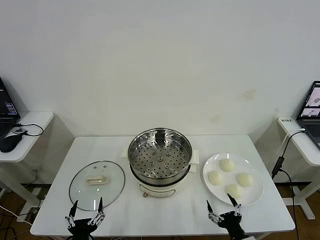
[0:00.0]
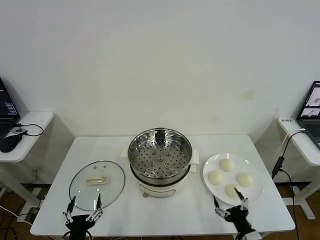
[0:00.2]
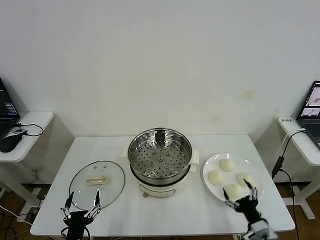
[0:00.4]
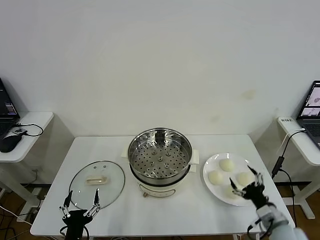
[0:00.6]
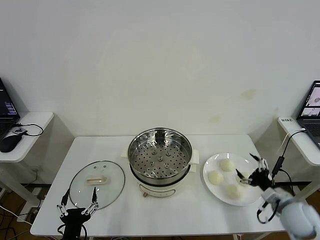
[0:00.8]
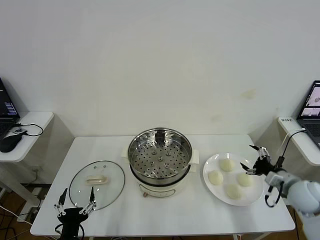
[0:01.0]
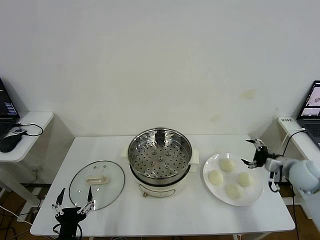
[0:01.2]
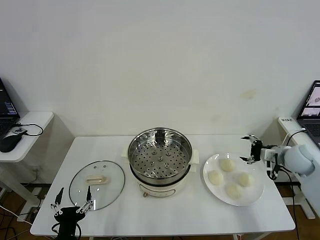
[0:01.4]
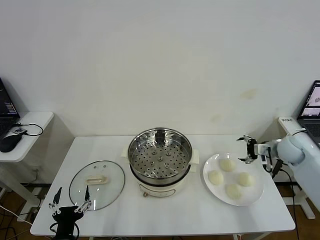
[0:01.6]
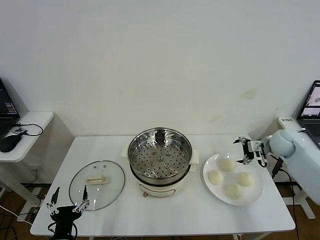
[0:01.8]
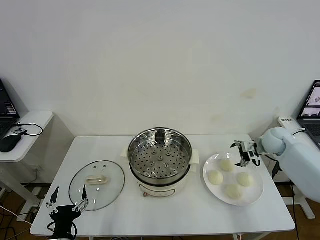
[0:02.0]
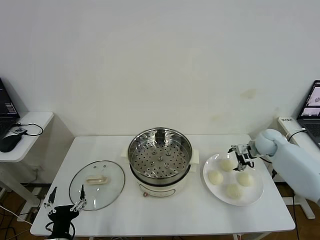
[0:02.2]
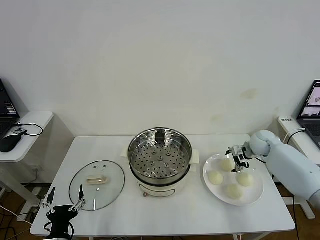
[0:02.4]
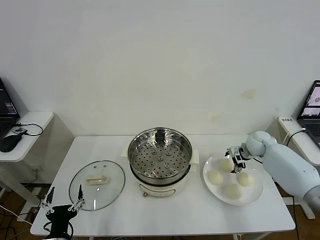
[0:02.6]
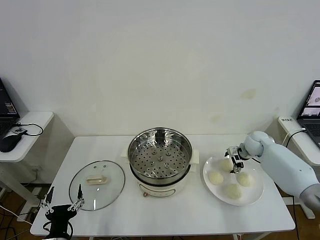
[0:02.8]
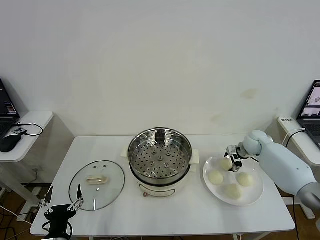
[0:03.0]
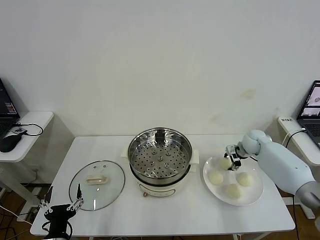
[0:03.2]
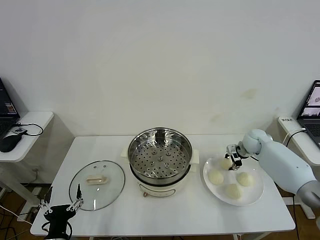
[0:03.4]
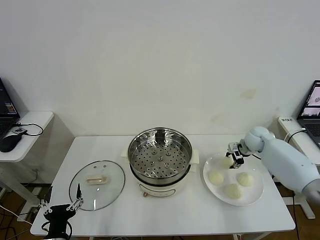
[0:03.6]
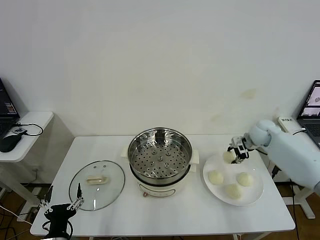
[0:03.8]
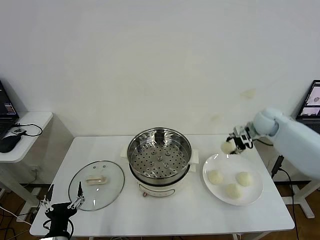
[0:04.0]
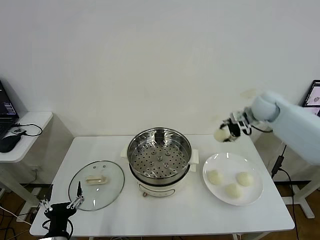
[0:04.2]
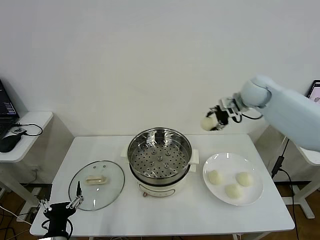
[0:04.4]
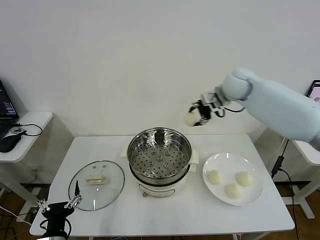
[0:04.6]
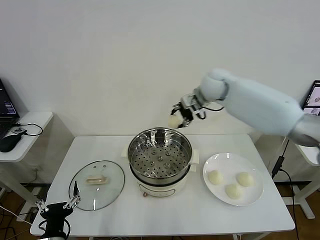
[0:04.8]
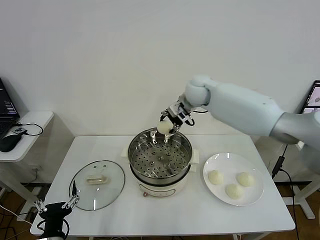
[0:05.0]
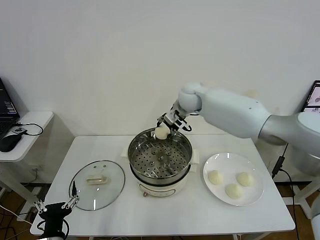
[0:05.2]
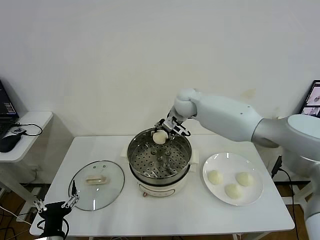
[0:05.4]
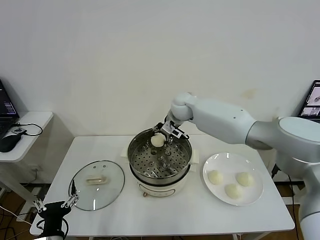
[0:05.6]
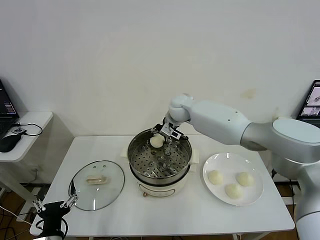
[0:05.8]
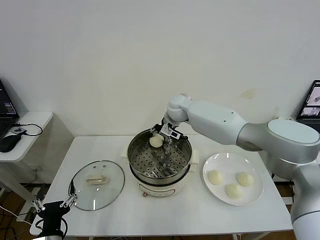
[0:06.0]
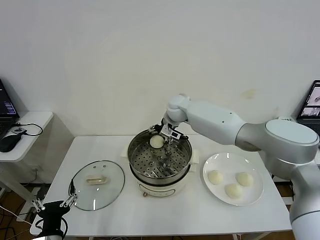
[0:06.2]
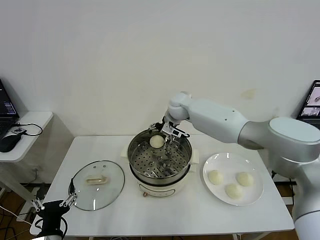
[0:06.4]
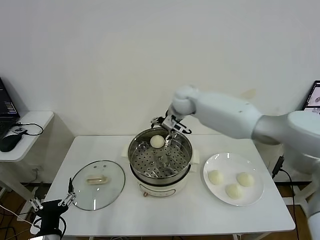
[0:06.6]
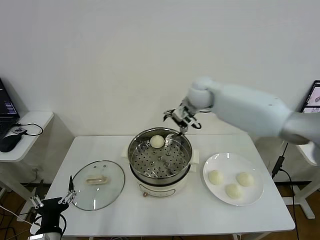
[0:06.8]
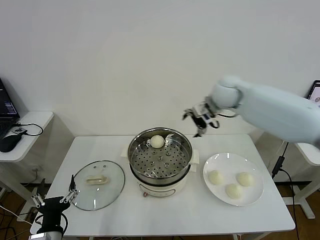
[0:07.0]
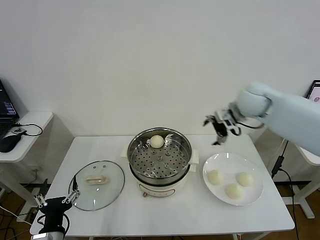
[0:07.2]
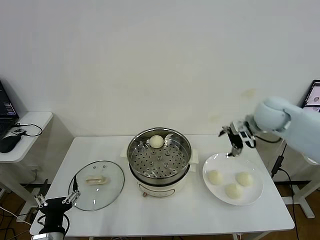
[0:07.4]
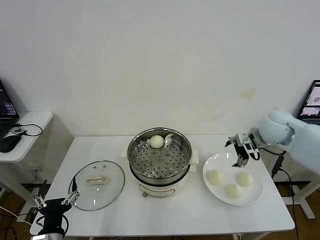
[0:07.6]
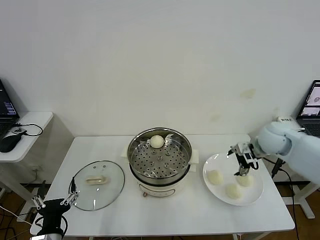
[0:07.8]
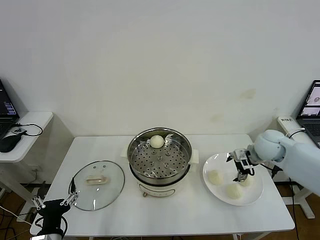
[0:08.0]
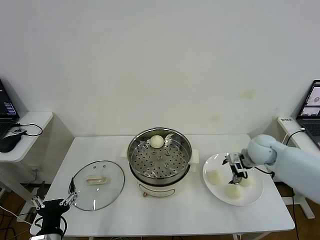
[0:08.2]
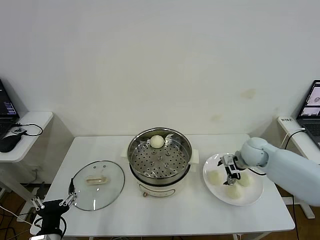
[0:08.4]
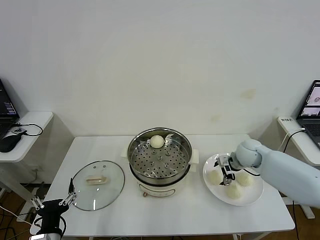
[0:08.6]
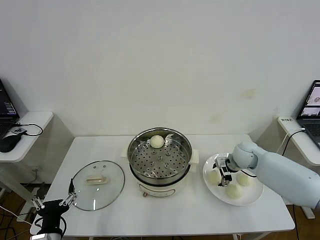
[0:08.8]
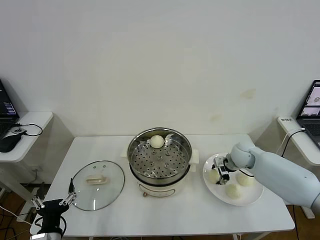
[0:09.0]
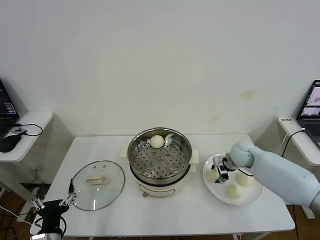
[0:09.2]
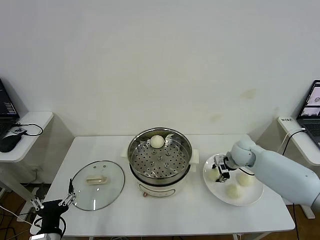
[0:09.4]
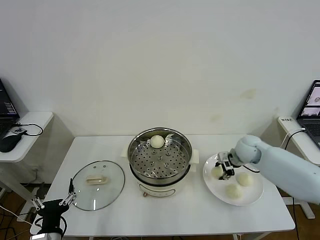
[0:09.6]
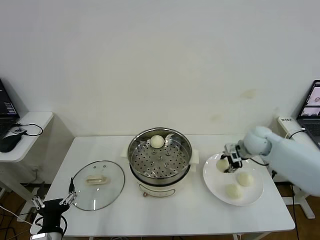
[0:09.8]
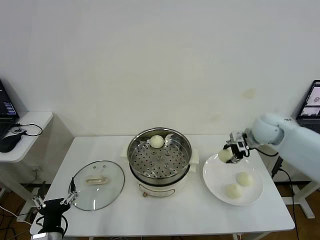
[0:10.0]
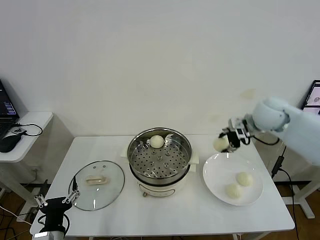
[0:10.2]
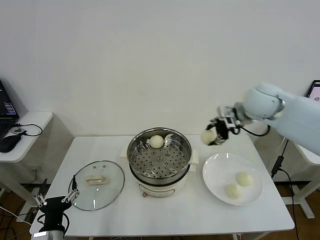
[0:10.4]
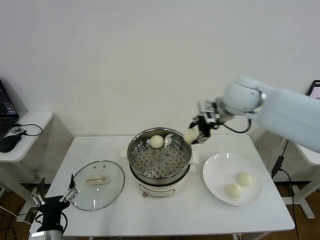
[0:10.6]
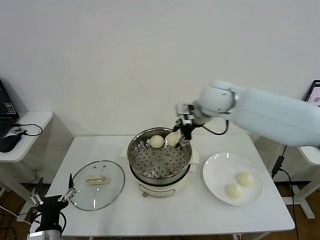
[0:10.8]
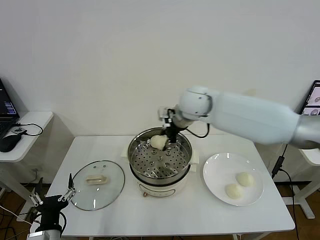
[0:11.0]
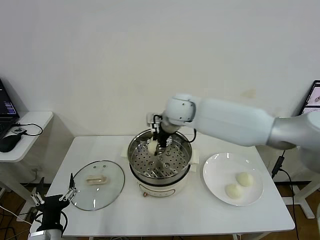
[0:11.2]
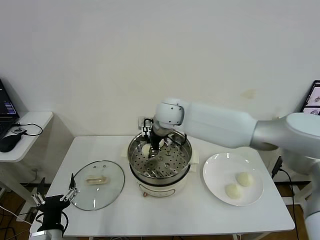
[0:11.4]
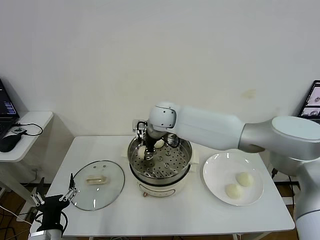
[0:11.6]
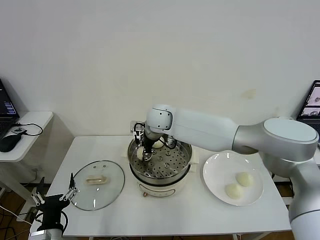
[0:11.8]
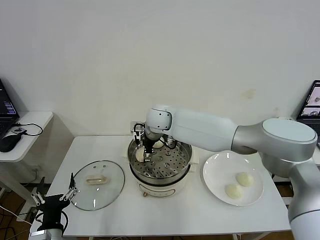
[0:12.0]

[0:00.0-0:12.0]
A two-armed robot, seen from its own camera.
Step, 0:00.0 to 0:03.2: Grasp the baozi in the plate with right gripper.
Step, 0:03.4 to 0:06.0: Place the baozi on the steamer with right gripper.
Step, 0:06.4 to 0:09.2: Grasp the baozi in the plate with right gripper.
Step, 0:09.4 to 0:12.0: Place the baozi on the steamer with right gripper.
0:01.6 to 0:03.0: The right gripper goes some 15 cm forward, downward and to the left, and closes.
0:03.0 to 0:04.4: The right gripper travels upward by some 25 cm, and closes.
0:04.4 to 0:06.0: The right gripper travels to the left and downward by roughly 25 cm.
0:06.0 to 0:07.6: The right gripper goes about 30 cm to the right and backward, and opens.
0:07.6 to 0:09.0: The right gripper is displaced downward by approximately 15 cm, and closes up.
0:09.0 to 0:10.4: The right gripper goes some 25 cm upward, and closes up.
0:10.4 to 0:12.0: The right gripper heads to the left, covering roughly 25 cm, and opens.

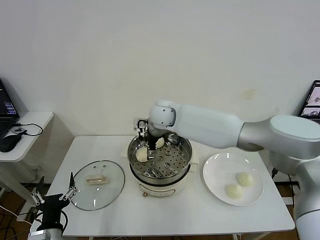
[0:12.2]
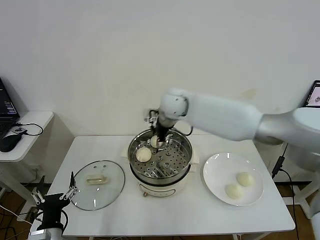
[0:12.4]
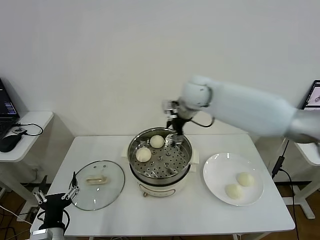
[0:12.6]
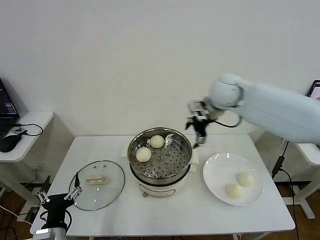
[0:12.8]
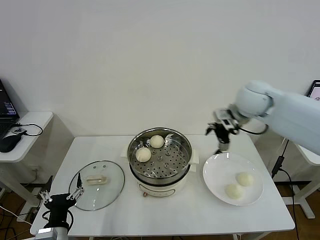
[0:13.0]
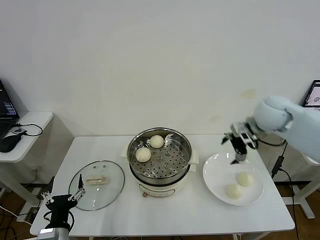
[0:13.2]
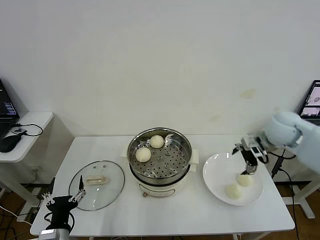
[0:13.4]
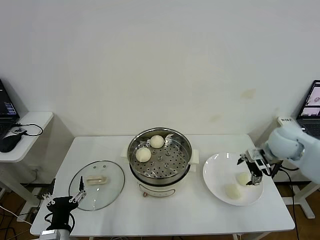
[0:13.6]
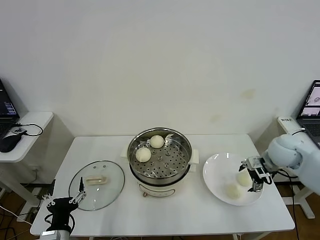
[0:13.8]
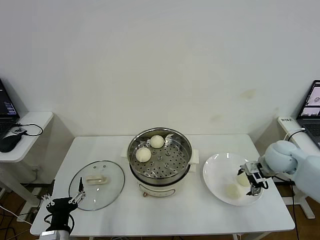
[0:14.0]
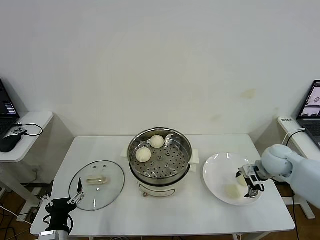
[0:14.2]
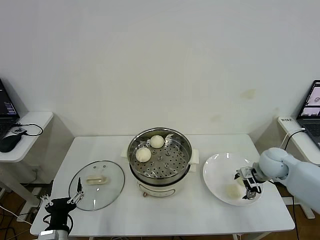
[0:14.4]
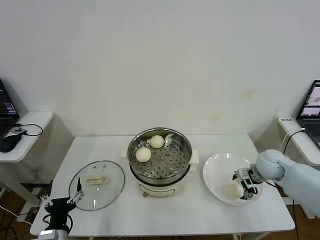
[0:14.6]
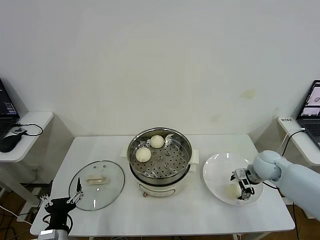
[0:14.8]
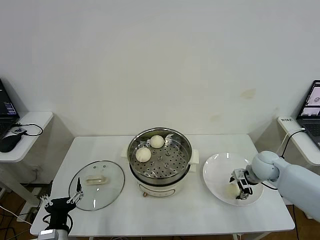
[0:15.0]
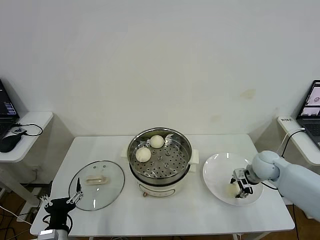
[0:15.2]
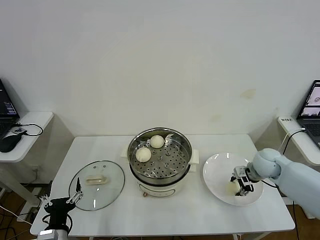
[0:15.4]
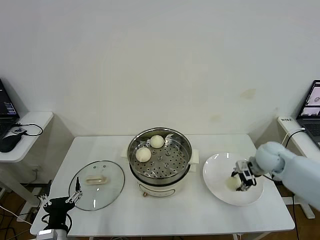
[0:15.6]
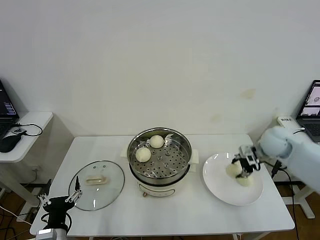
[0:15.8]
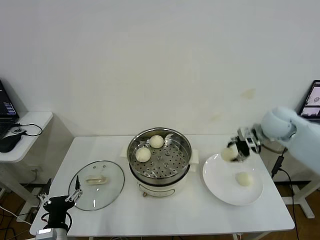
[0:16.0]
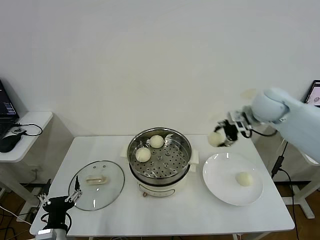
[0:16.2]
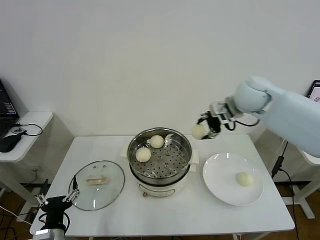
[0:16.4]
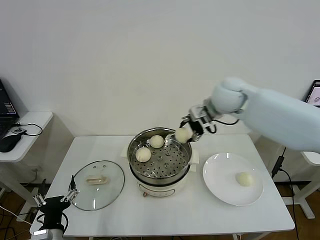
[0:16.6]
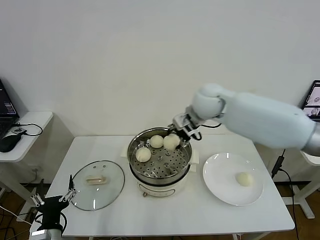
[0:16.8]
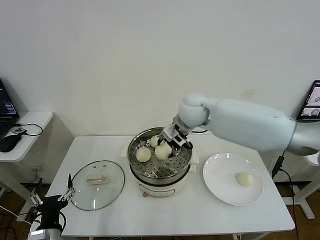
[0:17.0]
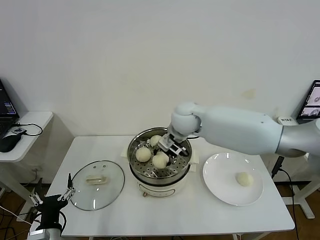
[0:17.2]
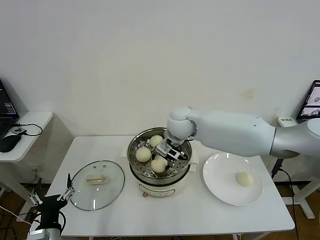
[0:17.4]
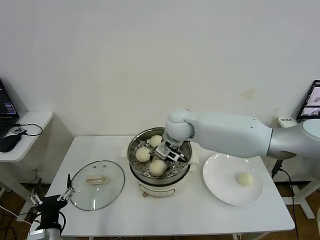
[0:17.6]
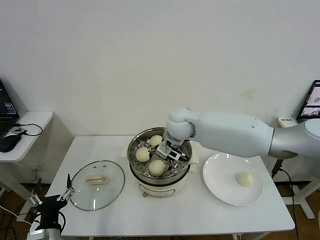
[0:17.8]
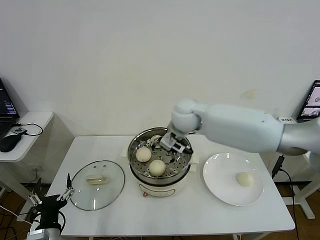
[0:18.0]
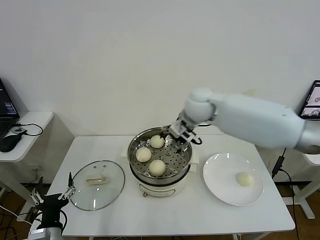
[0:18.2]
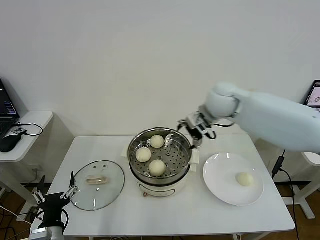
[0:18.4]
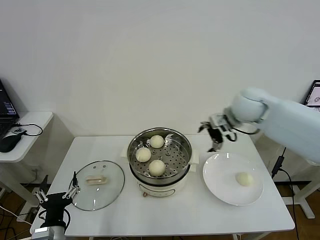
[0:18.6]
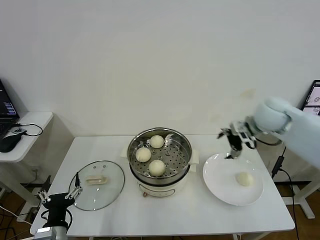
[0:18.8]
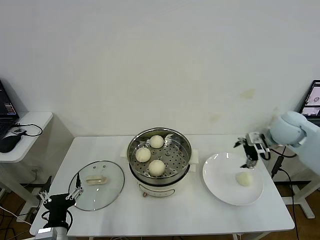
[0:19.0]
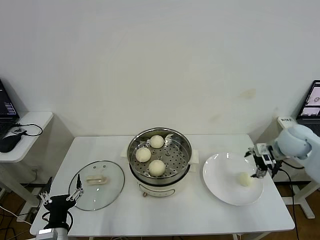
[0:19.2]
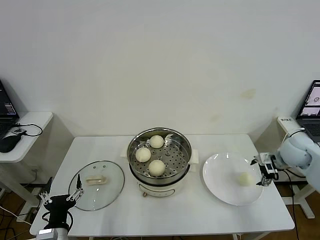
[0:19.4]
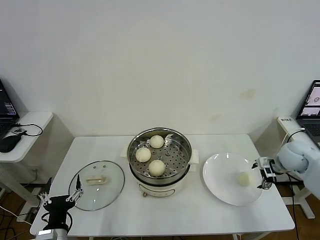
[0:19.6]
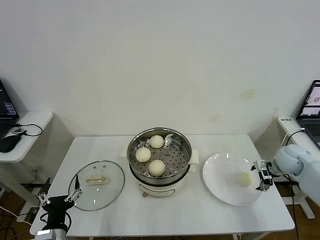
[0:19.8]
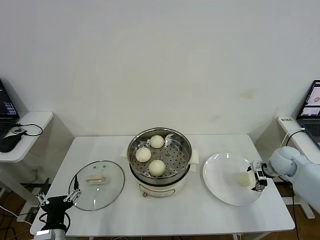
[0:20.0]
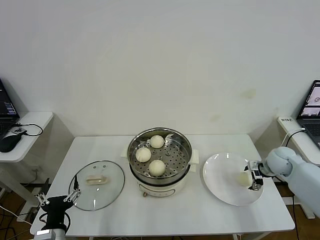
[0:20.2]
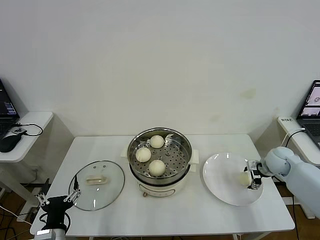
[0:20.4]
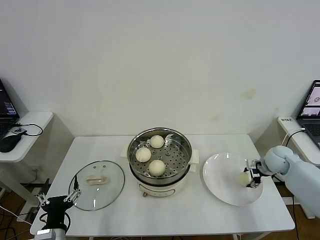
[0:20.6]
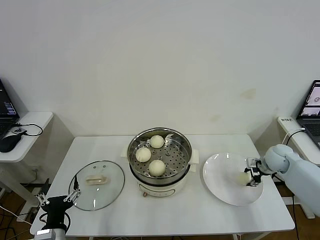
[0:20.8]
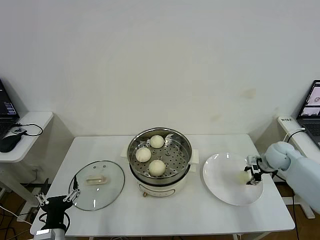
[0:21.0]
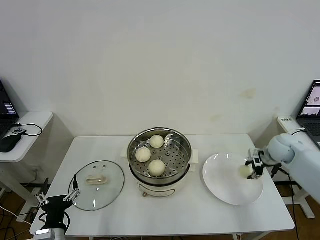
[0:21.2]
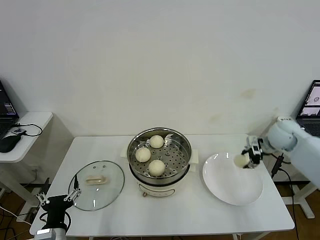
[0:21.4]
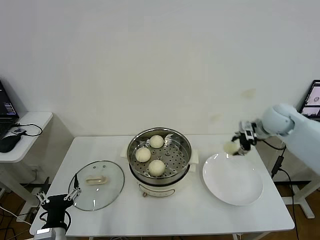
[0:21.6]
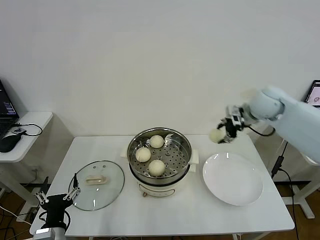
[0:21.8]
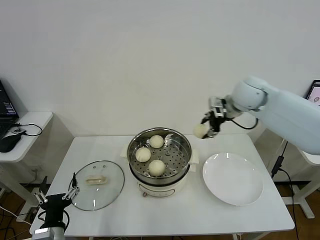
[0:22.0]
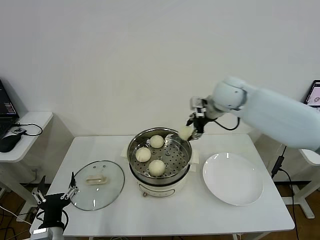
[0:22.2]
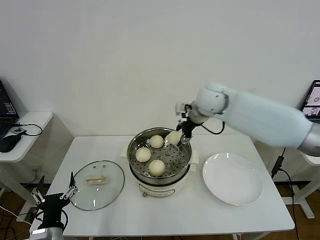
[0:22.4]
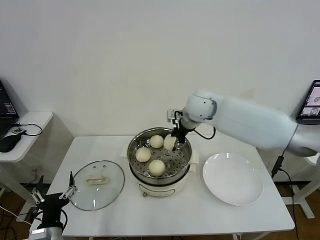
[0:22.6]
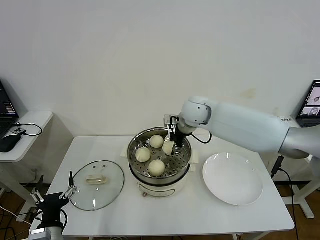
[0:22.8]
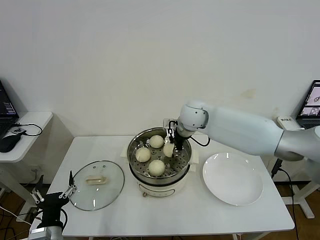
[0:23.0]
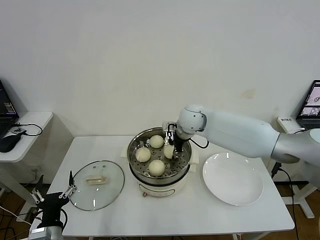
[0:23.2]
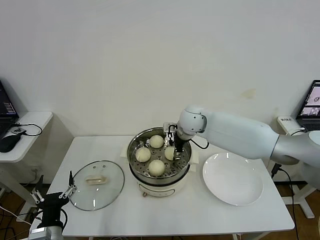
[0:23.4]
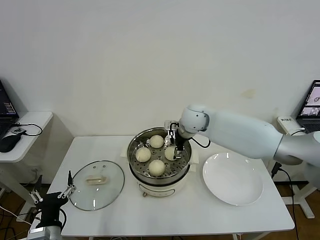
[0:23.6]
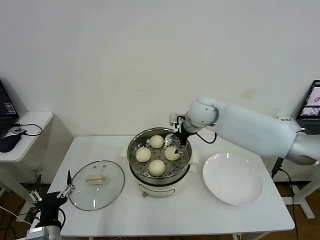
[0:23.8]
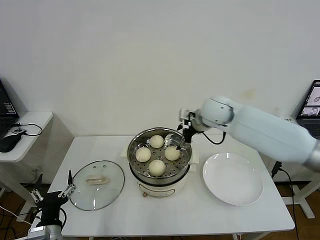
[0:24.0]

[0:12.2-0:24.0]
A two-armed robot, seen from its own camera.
Step, 0:12.2 to 0:15.2: Grasp the baozi in the plate with right gripper.
Step, 0:15.4 to 0:17.6: Place the baozi on the steamer with right gripper.
Step, 0:17.8 to 0:20.8: Grasp the baozi in the plate with right gripper.
Step, 0:21.0 to 0:23.6: Place the baozi on the steamer with right gripper.
0:12.2 to 0:13.6: The right gripper is displaced to the right by approximately 35 cm.
0:13.6 to 0:15.2: The right gripper travels downward by some 10 cm, and closes up.
0:15.2 to 0:16.6: The right gripper goes some 30 cm upward and to the left.
0:16.6 to 0:18.2: The right gripper goes approximately 5 cm to the left, and opens its fingers.
0:18.2 to 0:19.6: The right gripper shifts approximately 35 cm to the right and downward.
0:19.6 to 0:21.0: The right gripper ends up about 5 cm from where it was, and closes.
0:21.0 to 0:22.6: The right gripper is displaced to the left and upward by roughly 35 cm.
0:22.6 to 0:24.0: The right gripper moves approximately 5 cm, and opens.
